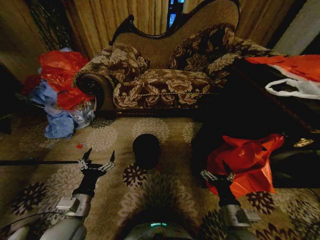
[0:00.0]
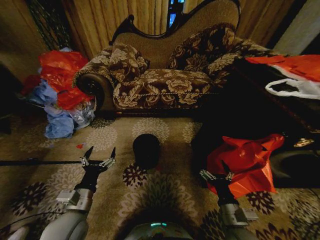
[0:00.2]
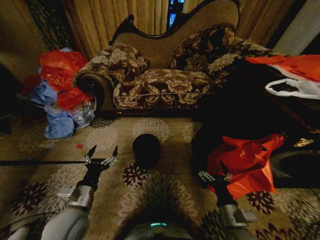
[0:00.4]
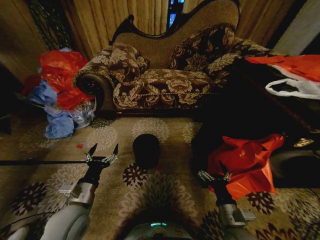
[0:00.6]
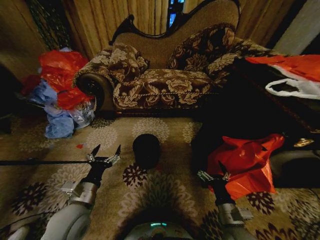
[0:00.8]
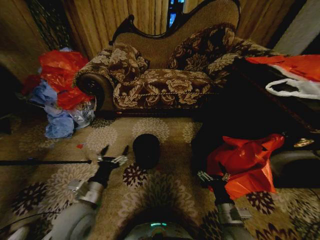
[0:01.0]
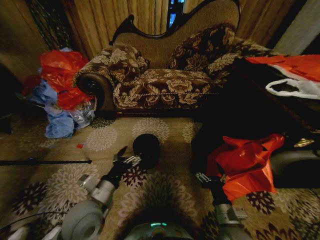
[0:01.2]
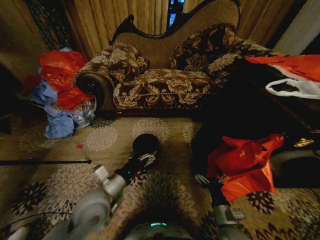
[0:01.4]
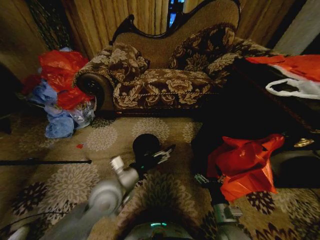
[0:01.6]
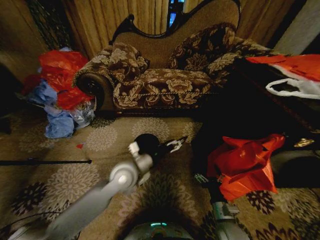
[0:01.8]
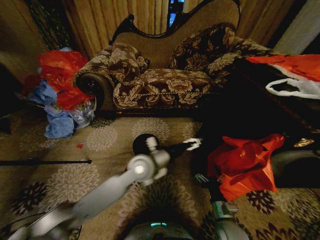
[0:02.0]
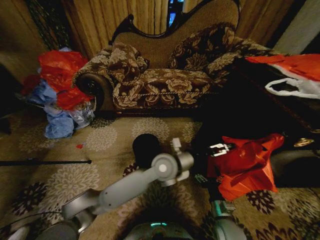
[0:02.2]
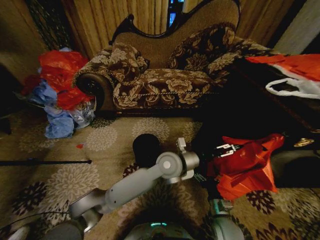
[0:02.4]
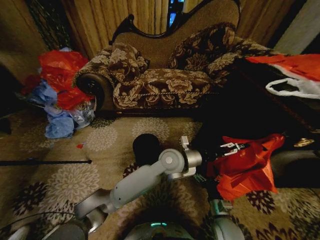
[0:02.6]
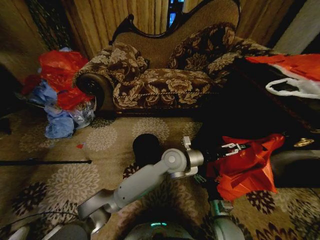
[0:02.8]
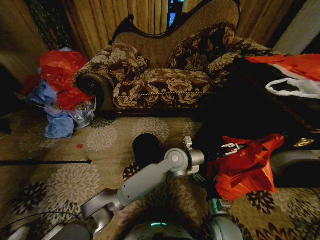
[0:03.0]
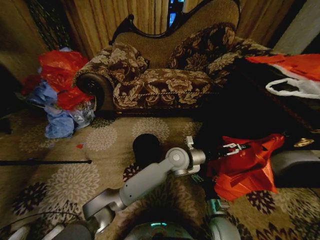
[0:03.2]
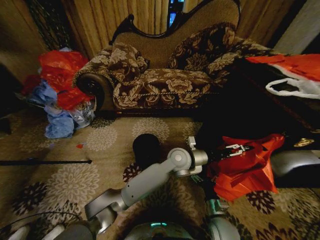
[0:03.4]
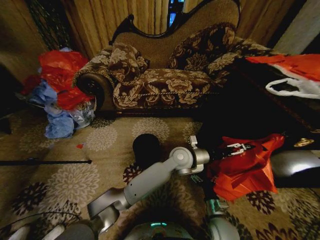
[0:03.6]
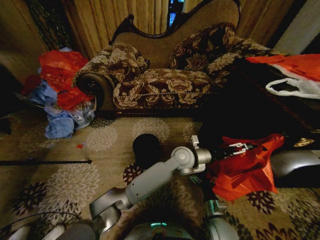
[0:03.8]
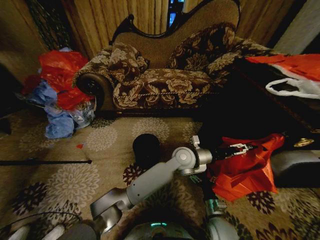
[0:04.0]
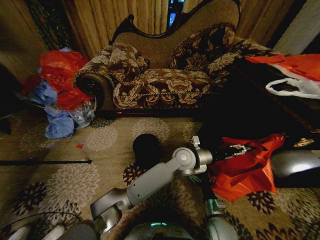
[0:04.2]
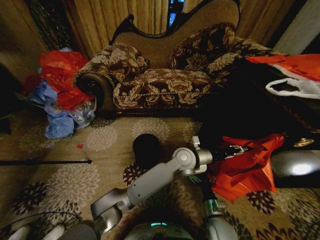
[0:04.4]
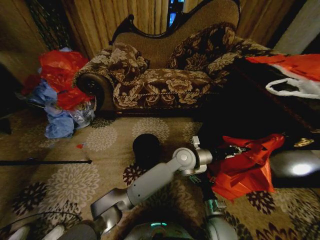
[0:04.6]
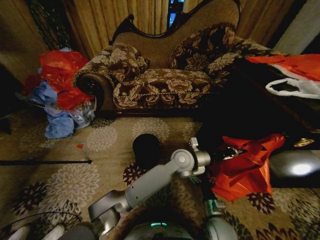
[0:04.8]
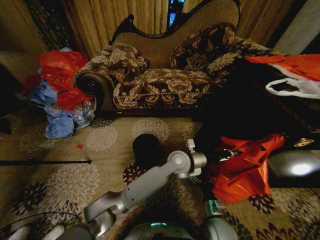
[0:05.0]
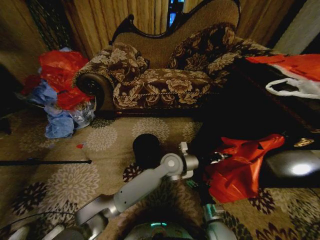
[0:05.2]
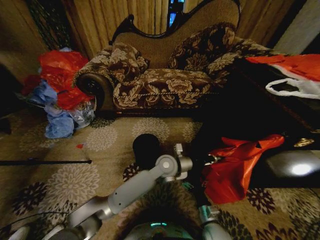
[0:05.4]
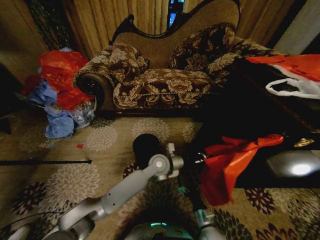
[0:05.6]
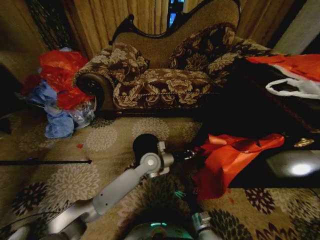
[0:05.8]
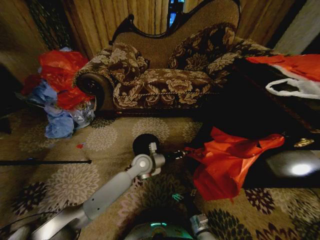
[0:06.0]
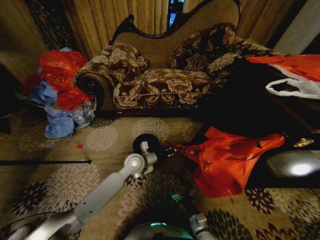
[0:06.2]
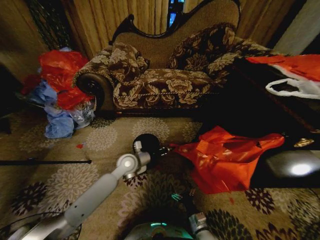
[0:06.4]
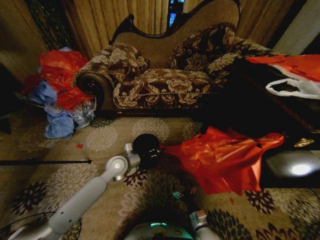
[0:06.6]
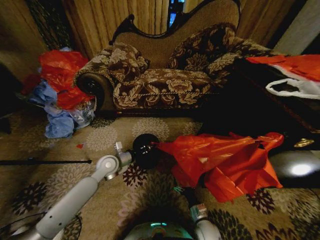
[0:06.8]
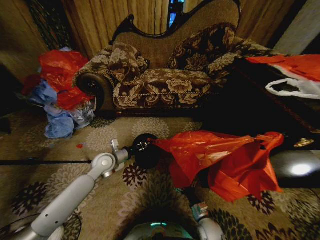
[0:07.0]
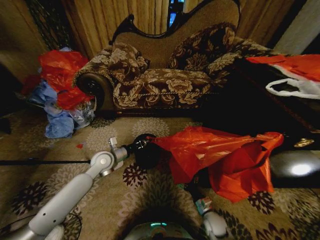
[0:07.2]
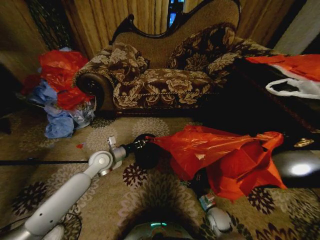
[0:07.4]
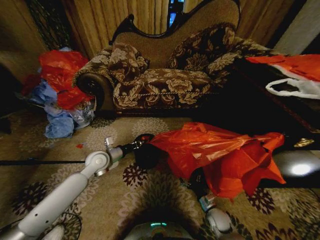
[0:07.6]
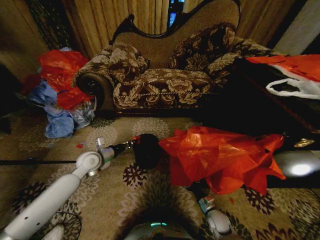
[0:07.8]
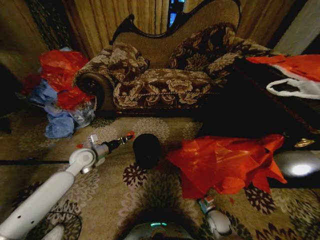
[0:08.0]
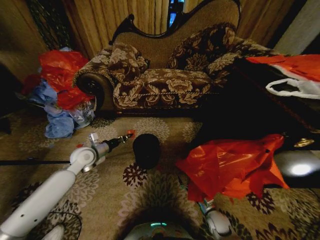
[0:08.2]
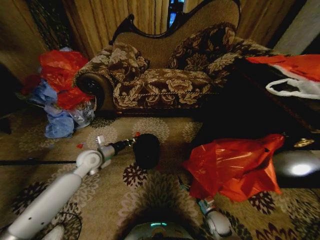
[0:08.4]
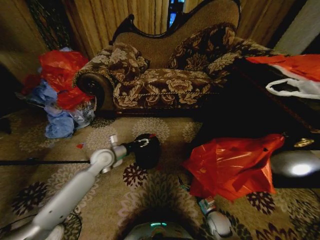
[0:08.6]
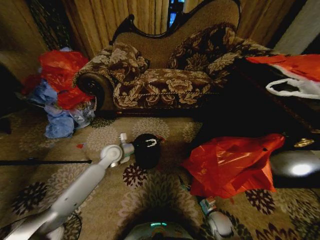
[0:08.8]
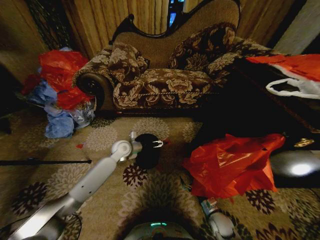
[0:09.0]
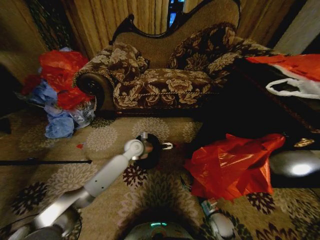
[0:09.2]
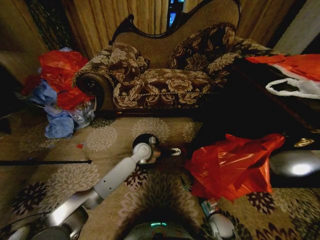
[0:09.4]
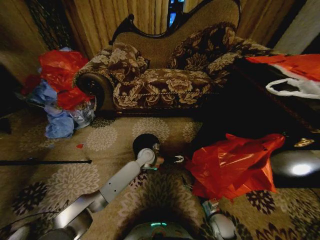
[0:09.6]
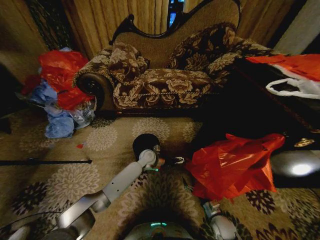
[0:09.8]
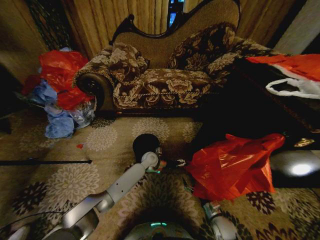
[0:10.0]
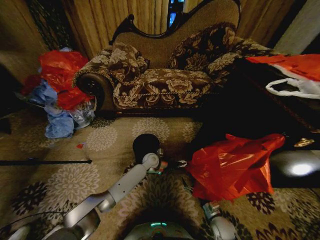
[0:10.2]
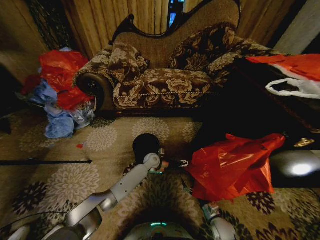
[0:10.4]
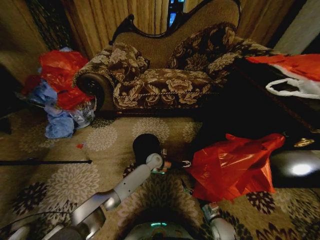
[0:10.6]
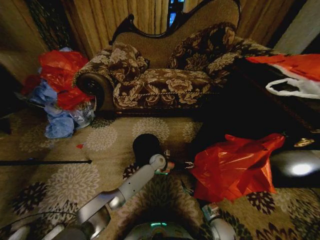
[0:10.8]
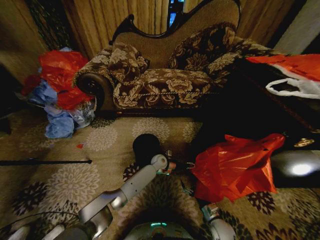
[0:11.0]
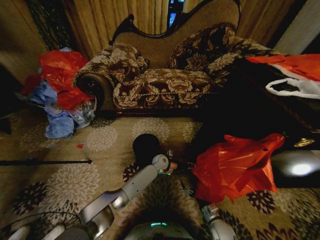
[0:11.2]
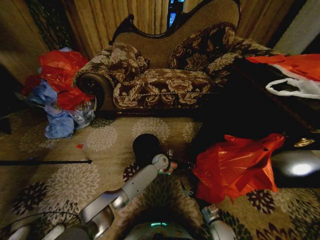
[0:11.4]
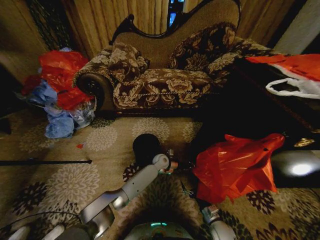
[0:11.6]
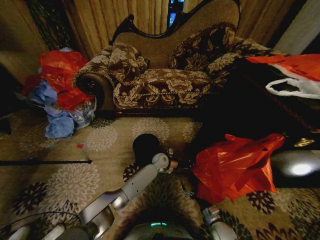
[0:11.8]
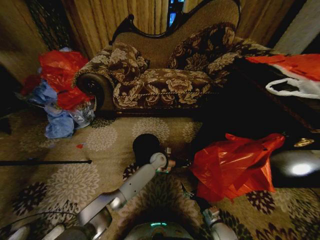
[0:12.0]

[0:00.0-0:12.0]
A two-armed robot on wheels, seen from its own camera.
Task of the whole recording: Place a garbage bag over the trash bin.
1.6 to 3.0 s: The left gripper heads to the right and forward, covering some 25 cm. Meanwhile the right gripper changes place by approximately 5 cm.
3.0 to 4.4 s: The left gripper closes up.
4.4 to 6.0 s: The left gripper shifts some 15 cm to the left. The right gripper moves downward, some 5 cm.
6.0 to 7.6 s: The right gripper heads forward and to the right, covering some 10 cm; the left gripper travels to the left by approximately 20 cm.
7.6 to 9.0 s: The left gripper moves forward and to the right, approximately 10 cm, and opens.
9.0 to 10.4 s: The left gripper is displaced to the right and downward by some 20 cm.
10.4 to 12.0 s: The left gripper closes.

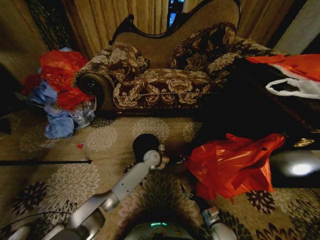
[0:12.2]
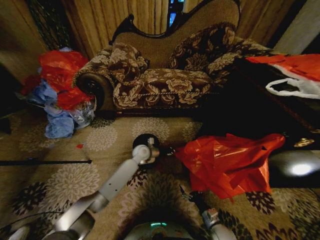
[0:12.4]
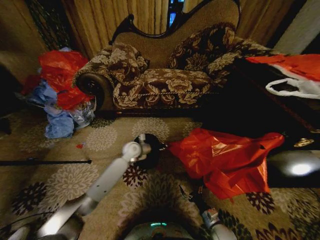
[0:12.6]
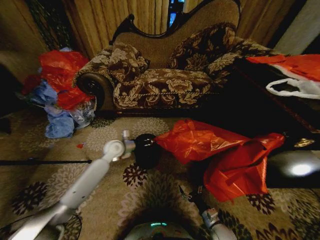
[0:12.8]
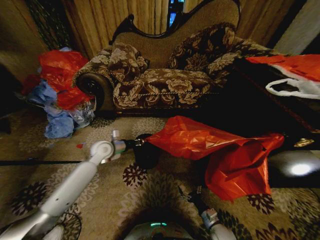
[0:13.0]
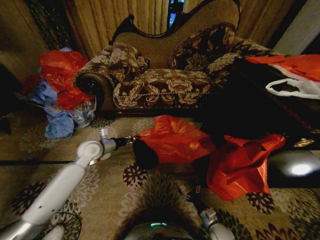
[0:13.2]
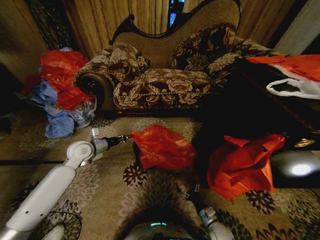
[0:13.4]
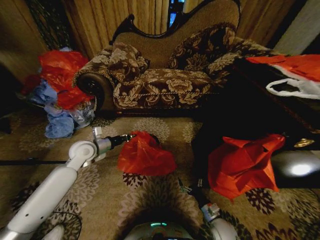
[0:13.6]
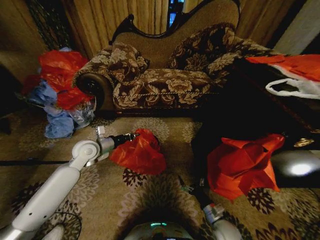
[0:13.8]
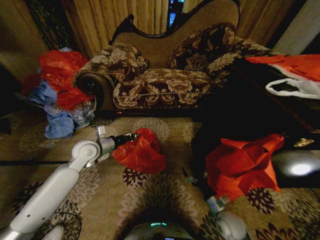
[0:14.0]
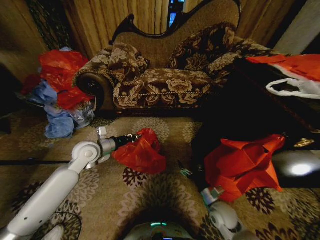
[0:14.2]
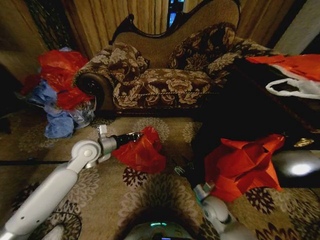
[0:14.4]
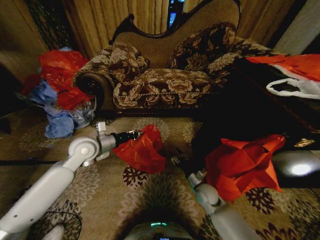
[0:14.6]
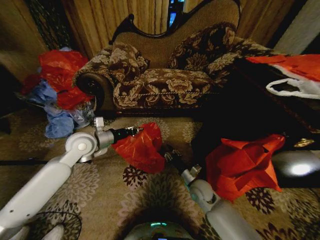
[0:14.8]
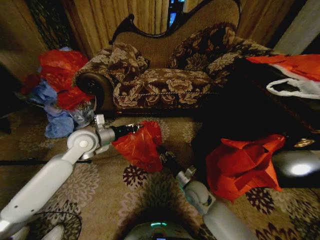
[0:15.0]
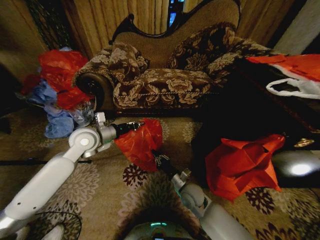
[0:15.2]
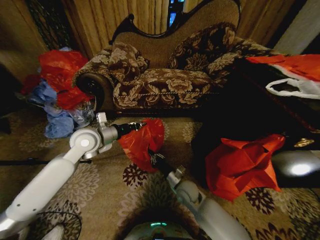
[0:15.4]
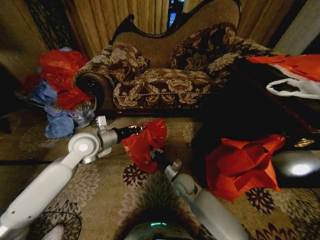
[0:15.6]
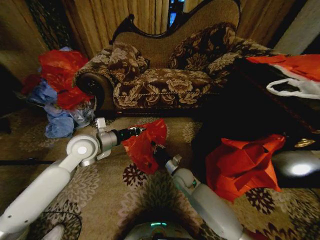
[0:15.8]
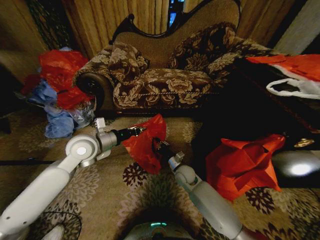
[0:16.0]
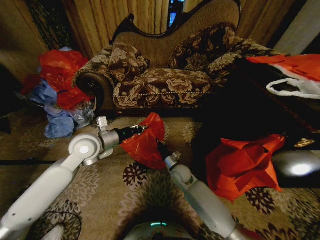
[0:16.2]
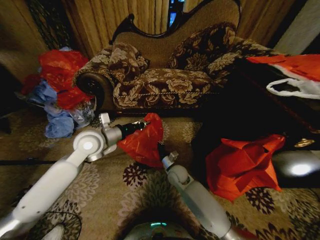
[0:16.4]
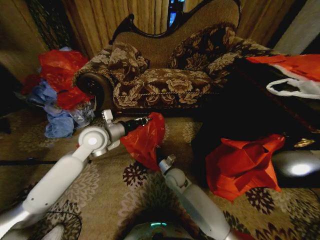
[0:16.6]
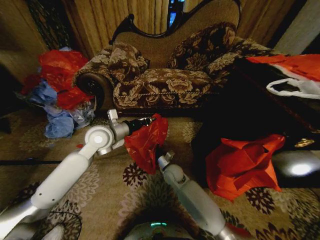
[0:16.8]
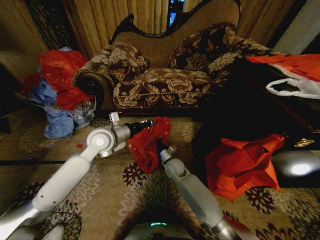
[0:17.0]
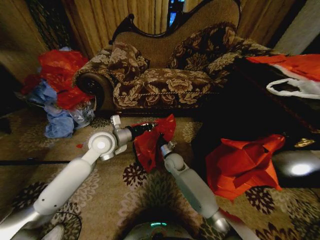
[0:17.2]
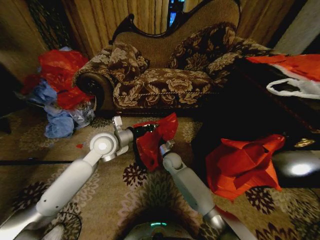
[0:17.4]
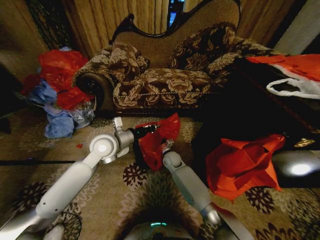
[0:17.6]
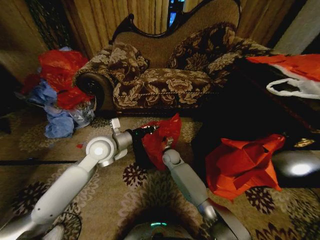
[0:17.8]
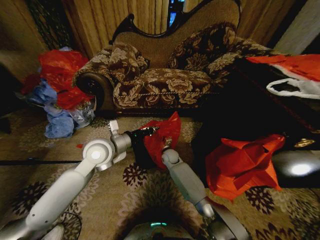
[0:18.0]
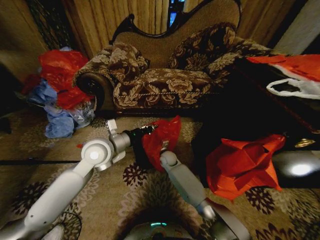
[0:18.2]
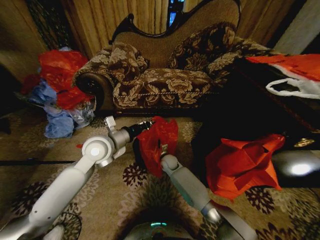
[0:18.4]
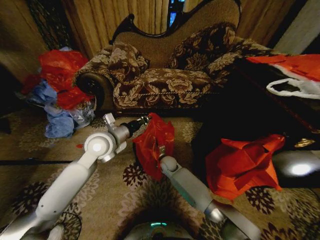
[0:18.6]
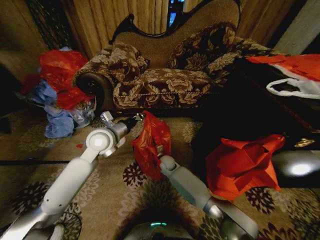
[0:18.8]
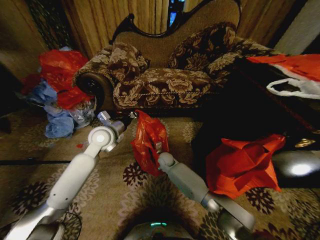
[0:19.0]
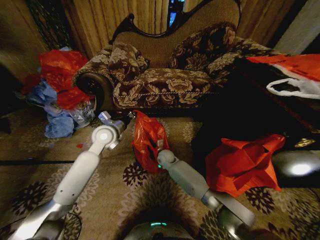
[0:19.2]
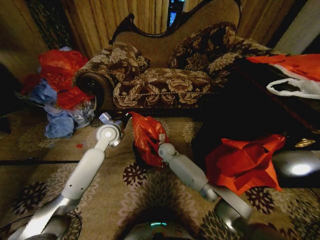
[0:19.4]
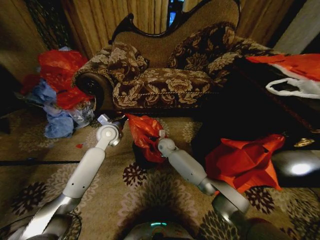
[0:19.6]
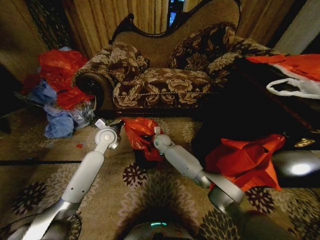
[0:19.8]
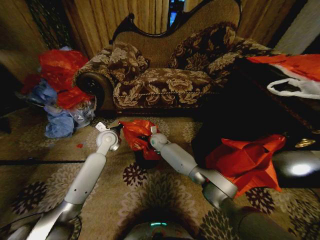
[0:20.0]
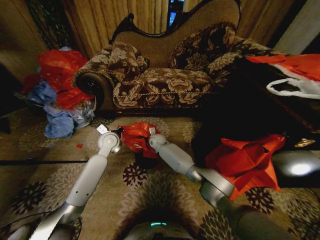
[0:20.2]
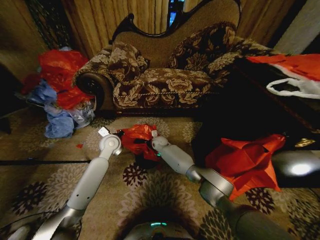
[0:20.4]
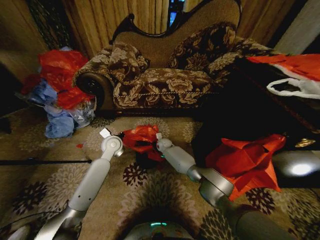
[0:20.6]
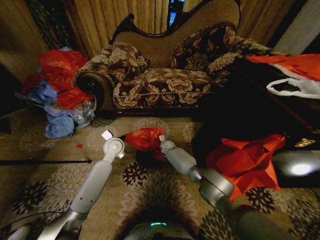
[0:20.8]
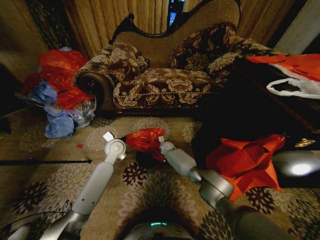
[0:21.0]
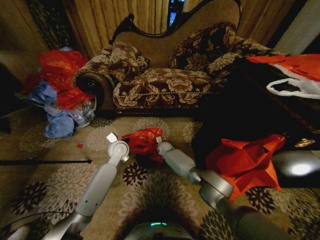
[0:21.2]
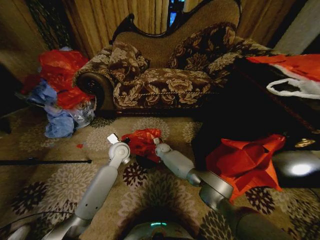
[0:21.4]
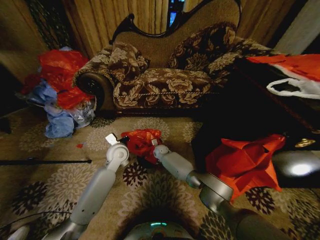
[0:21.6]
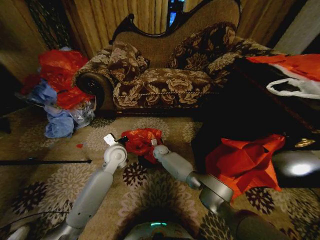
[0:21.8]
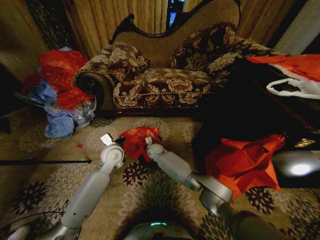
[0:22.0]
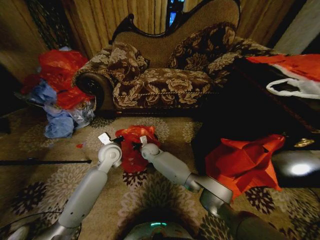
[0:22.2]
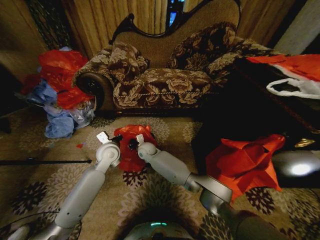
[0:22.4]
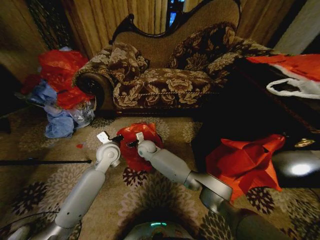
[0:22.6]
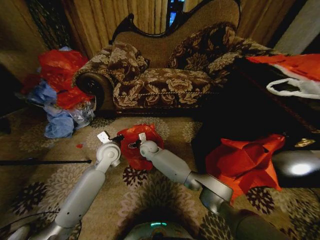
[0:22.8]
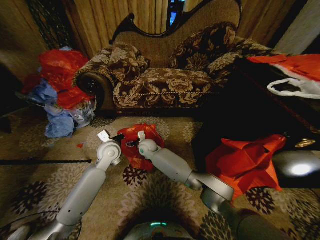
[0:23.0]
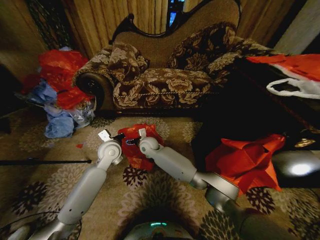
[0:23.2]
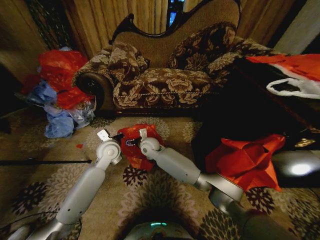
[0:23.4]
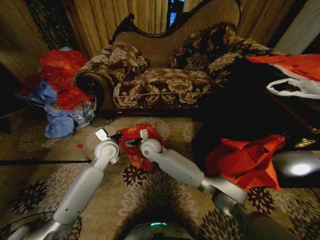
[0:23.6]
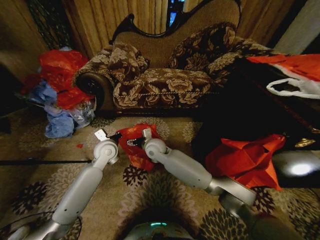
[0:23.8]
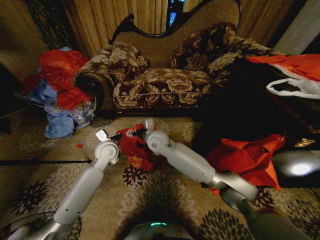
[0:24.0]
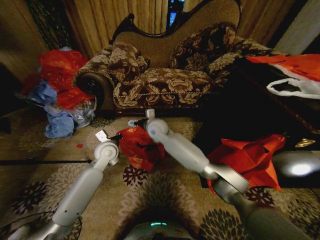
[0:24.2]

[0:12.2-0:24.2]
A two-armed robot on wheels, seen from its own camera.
Task of the whole recording: Place a garbage bag over the trash bin.
12.2 to 13.8 s: The left gripper moves to the left and upward, roughly 30 cm, while the right gripper moves upward, approximately 5 cm.
13.8 to 15.2 s: The left gripper shifts approximately 5 cm upward; the right gripper travels to the left, forward and upward by approximately 20 cm, and closes up.
15.2 to 16.6 s: The right gripper heads forward and to the left, covering approximately 10 cm.
16.6 to 18.2 s: The right gripper heads forward, covering some 10 cm; the left gripper shifts by roughly 5 cm.
18.2 to 19.8 s: The left gripper shifts approximately 15 cm forward and downward; the right gripper moves upward and forward, some 10 cm.
19.8 to 21.2 s: The right gripper heads downward, covering approximately 10 cm. The left gripper shifts roughly 10 cm downward and to the right.
21.2 to 22.6 s: The right gripper is displaced to the left, upward and backward by approximately 15 cm, and opens up. Meanwhile the left gripper ends up roughly 5 cm from where it was.
22.6 to 24.2 s: The right gripper shifts some 15 cm upward and to the right.
